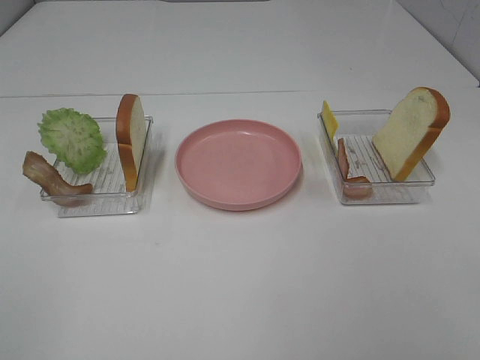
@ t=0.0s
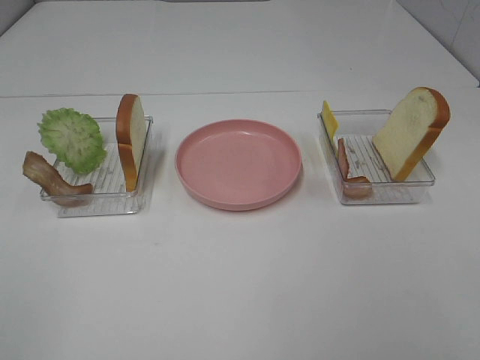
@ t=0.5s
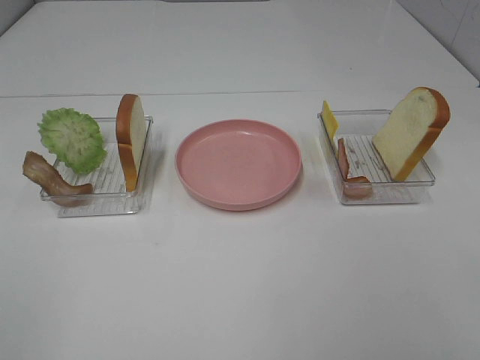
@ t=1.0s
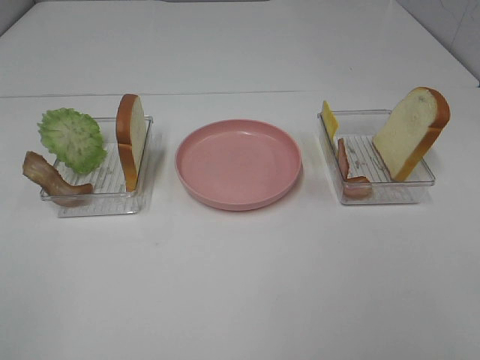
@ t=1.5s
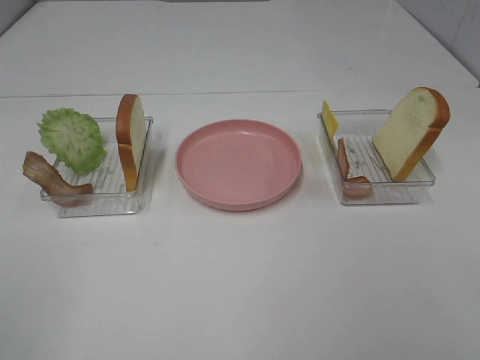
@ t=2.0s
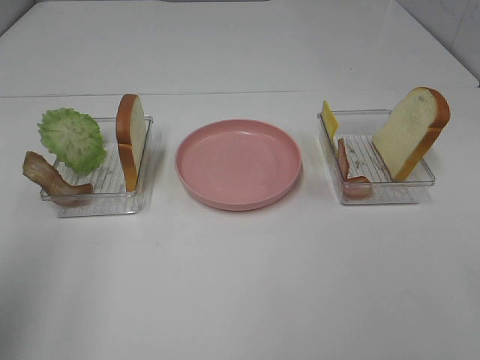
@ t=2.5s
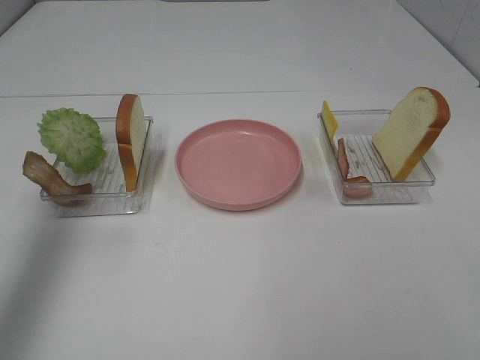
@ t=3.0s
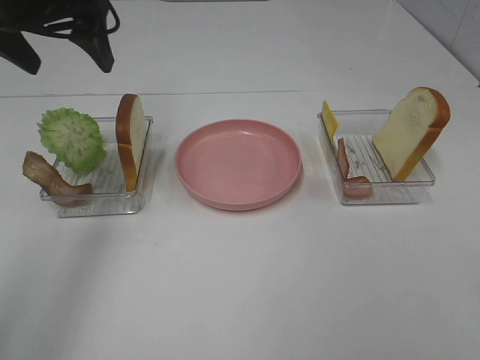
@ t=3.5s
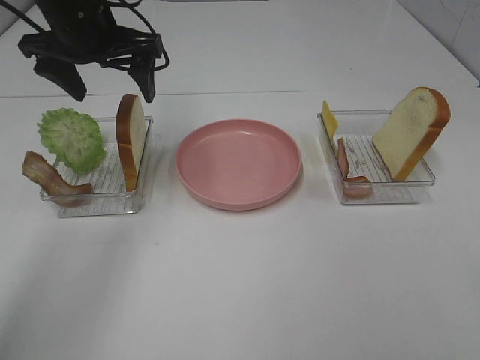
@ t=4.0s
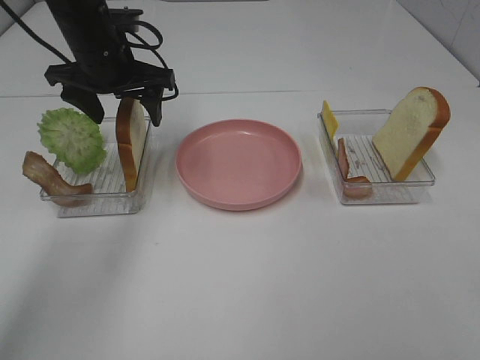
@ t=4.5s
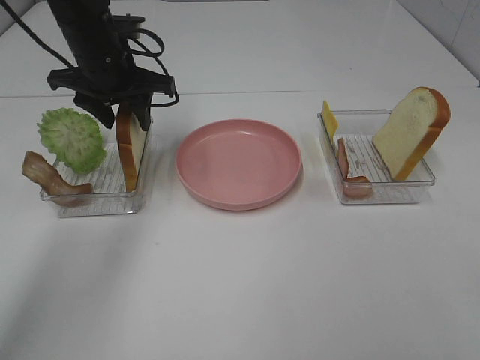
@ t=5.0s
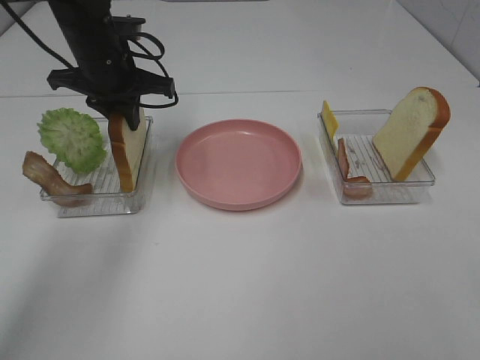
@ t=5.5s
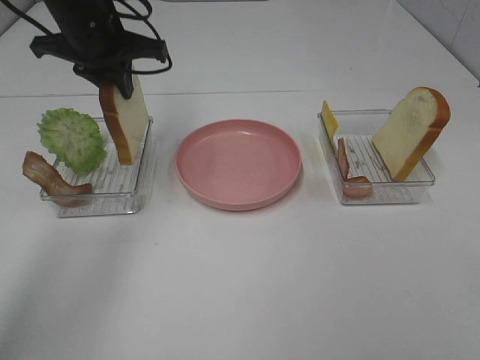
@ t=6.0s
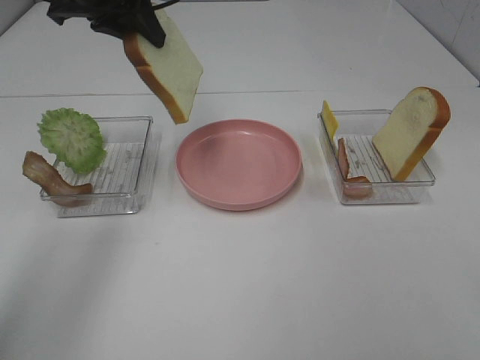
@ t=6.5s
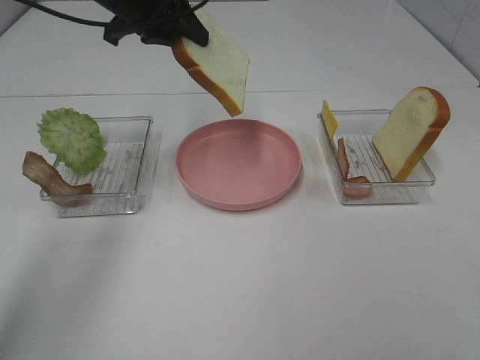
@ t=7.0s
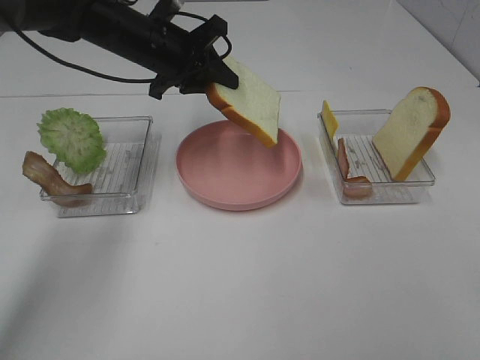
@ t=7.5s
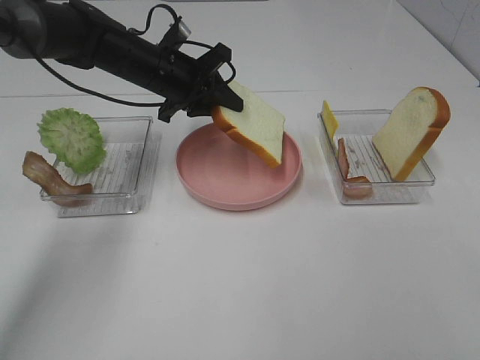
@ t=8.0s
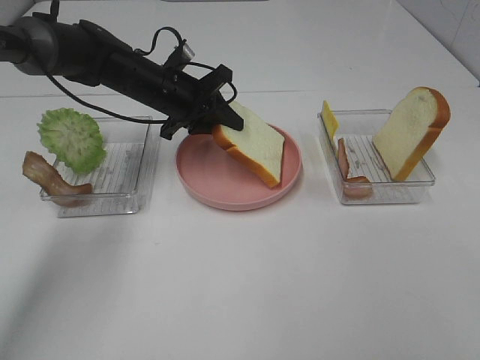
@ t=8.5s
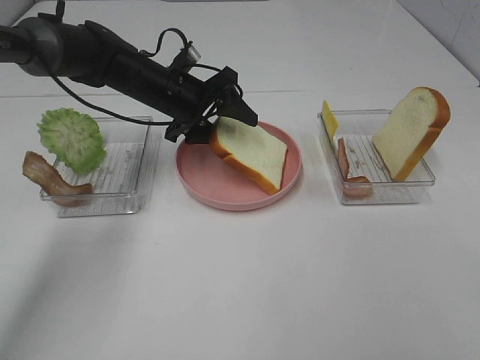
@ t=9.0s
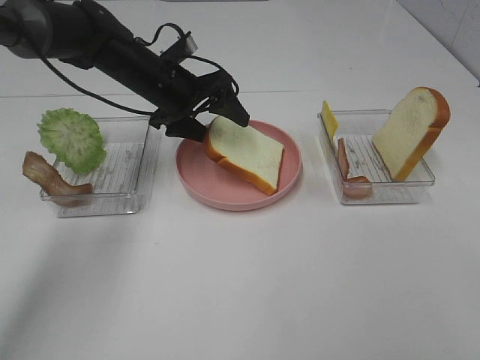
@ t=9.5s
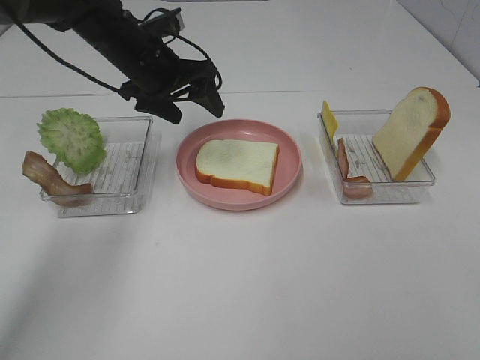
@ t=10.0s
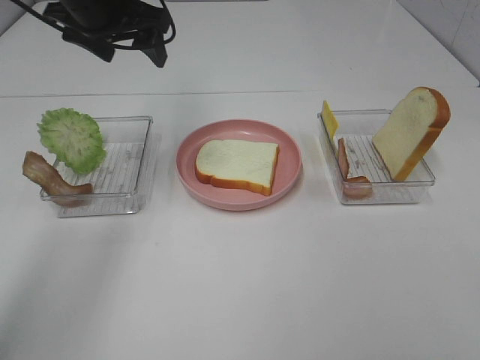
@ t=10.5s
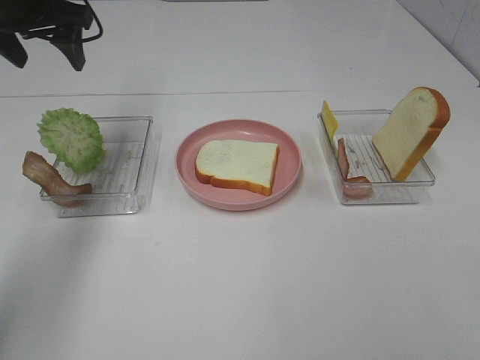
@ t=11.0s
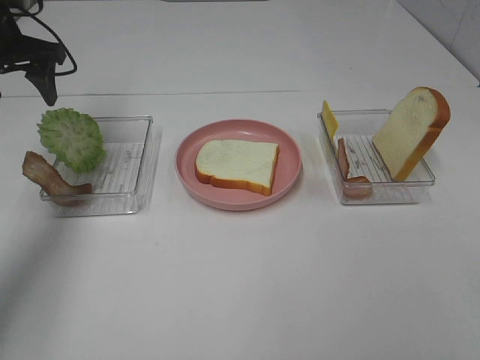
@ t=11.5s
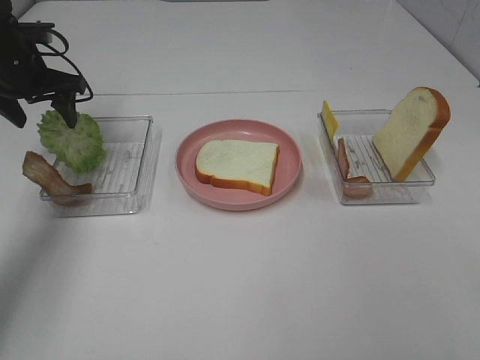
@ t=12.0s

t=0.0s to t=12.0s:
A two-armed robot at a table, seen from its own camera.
Task of the whole recording: Make sandwiches.
Step, t=0.0s to t=5.5s: Left hand:grab the bread slice.
Step, t=6.0s to t=9.5s: Left hand:place the bread slice on the plate.
t=2.0s to t=4.0s: The left gripper heads forward, covering about 40 cm.
t=4.0s to t=6.0s: The left gripper closes up.
t=6.0s to t=8.0s: The left gripper is displaced downward and to the right by some 10 cm.
t=8.0s to t=10.0s: The left gripper opens its fingers.
t=10.0s to t=12.0s: The left gripper shifts roughly 15 cm to the left.

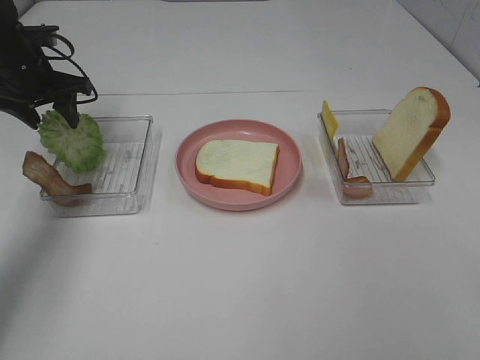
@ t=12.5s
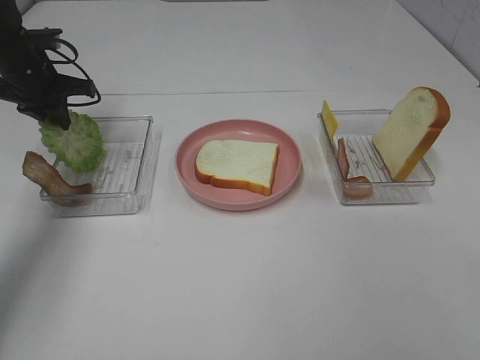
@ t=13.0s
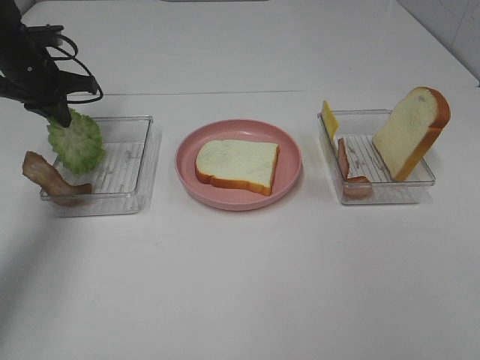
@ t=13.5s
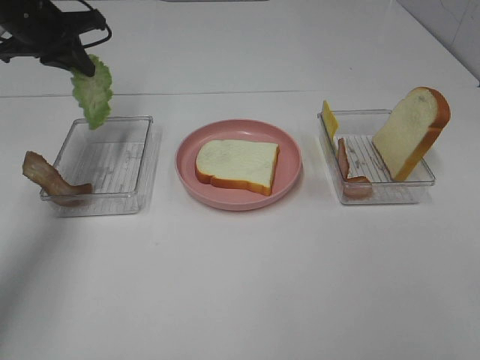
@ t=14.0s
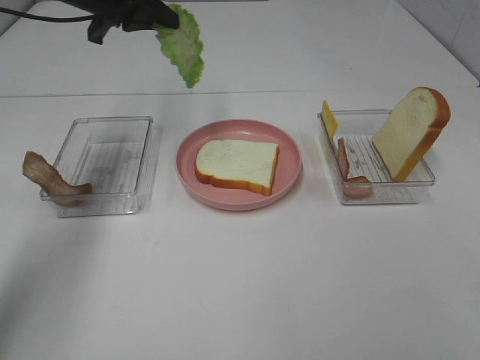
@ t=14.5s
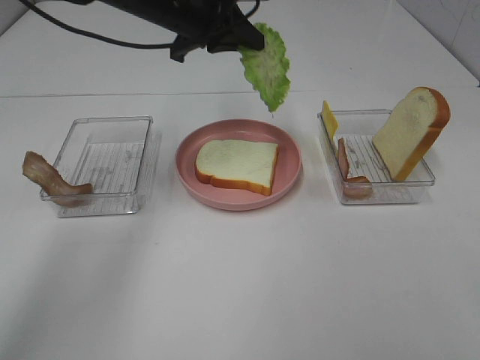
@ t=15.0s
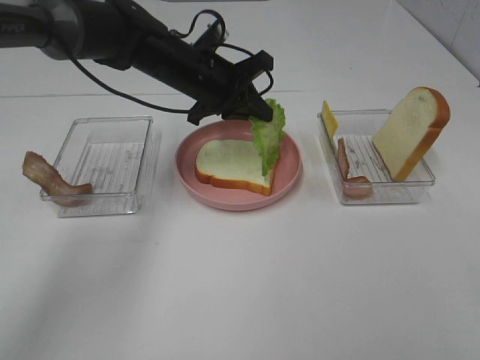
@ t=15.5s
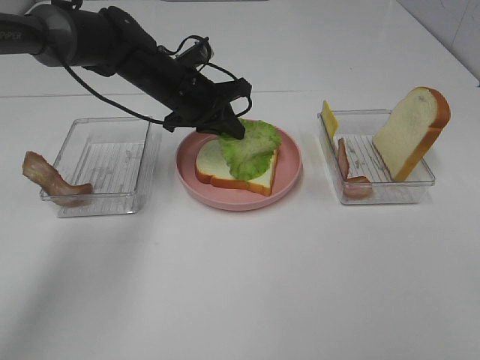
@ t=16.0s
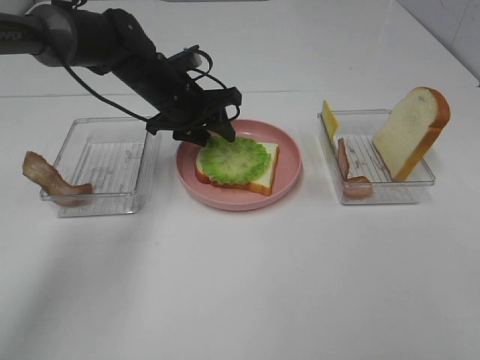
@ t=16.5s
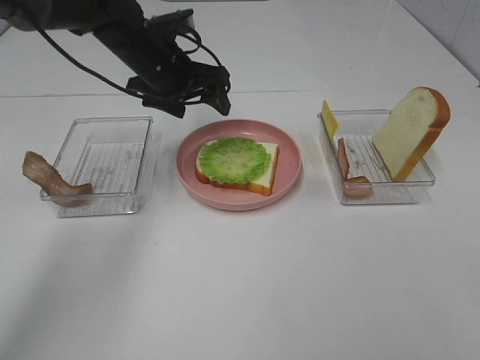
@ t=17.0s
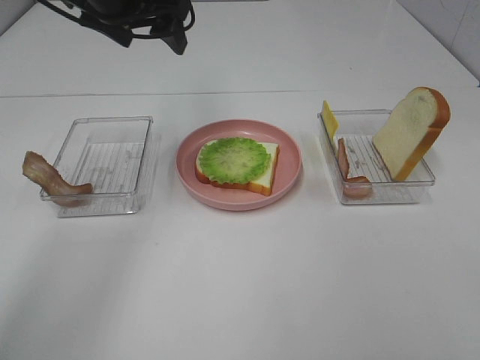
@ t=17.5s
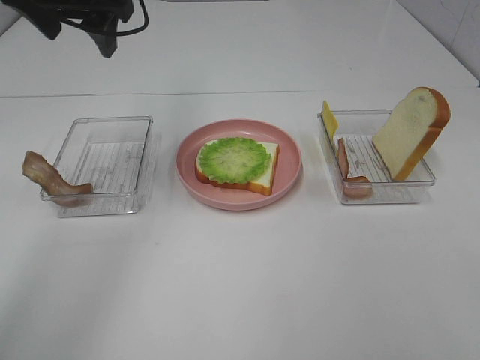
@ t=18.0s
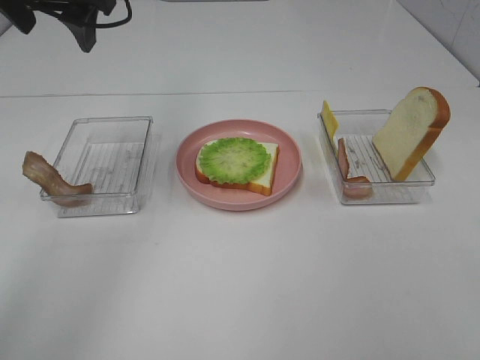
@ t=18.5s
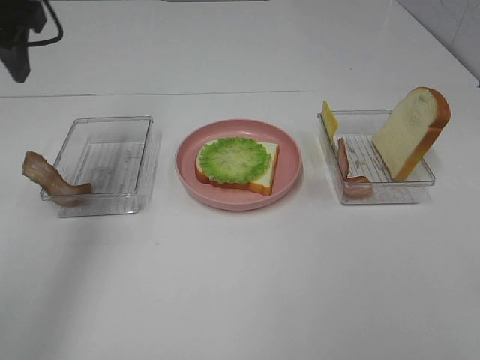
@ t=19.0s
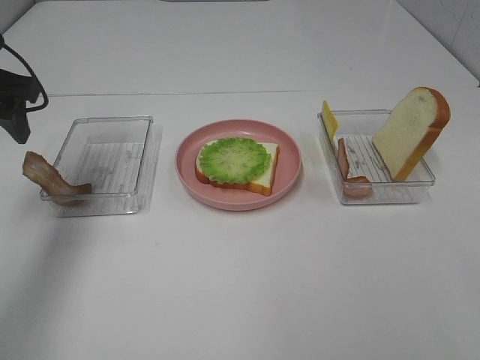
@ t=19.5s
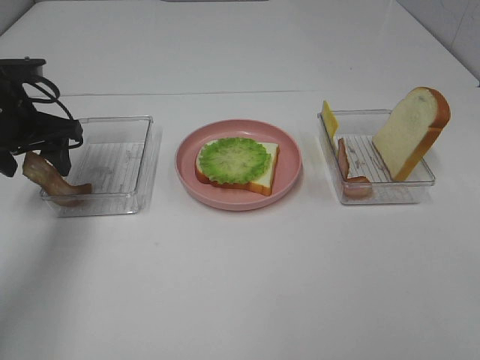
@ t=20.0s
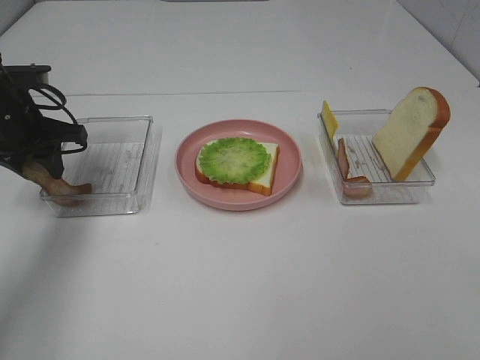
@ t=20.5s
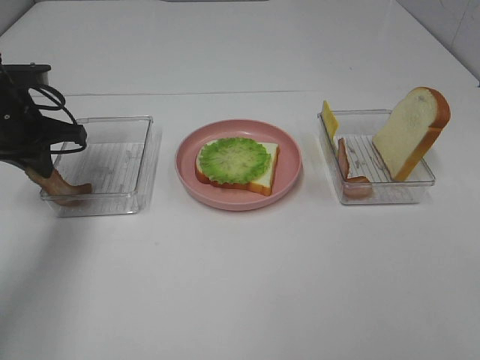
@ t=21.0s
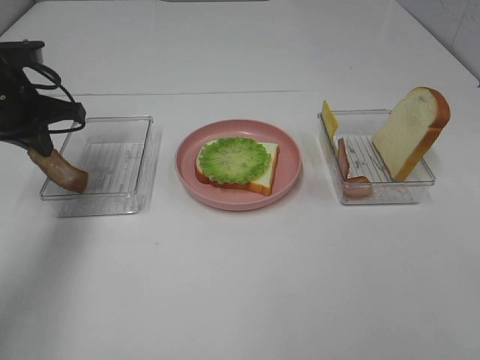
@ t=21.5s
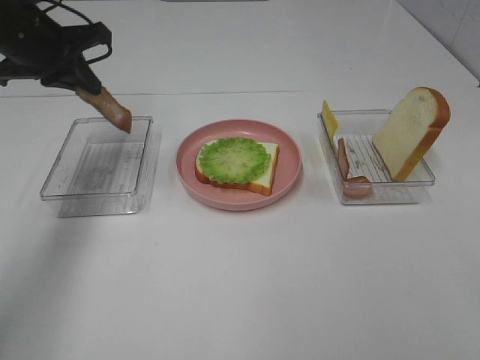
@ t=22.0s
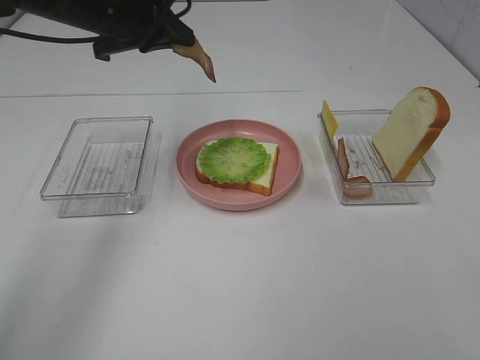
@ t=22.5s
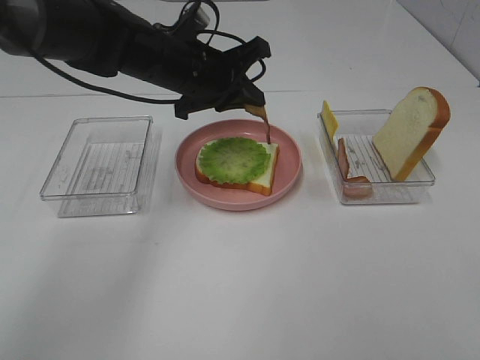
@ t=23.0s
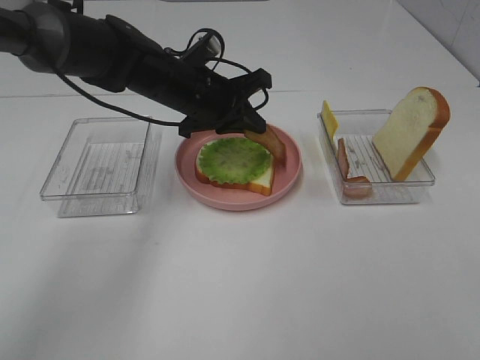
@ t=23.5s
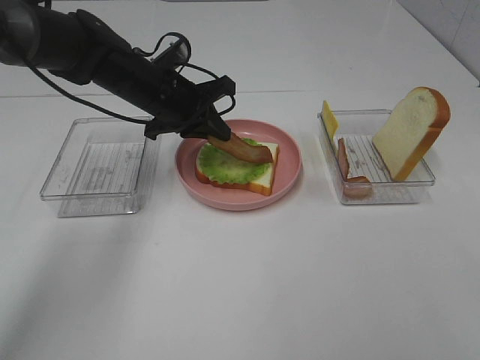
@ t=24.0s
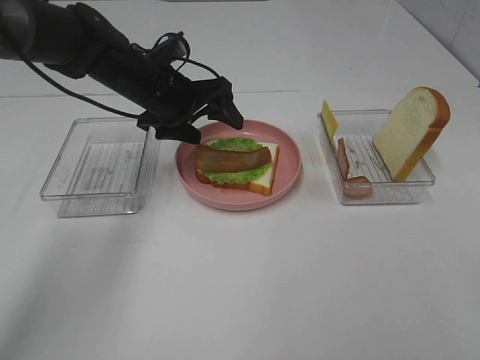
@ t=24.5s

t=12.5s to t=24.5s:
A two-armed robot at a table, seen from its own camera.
Task of the whole recording: Make sandwiches.
Step, t=13.5s to t=16.5s: Left hand:place the lettuce slice on the bread slice.
Step, t=17.0s to t=21.0s: Left hand:grab the bacon.
t=12.5s to t=14.5s: The left gripper shifts some 15 cm to the right and upward, and closes.
t=14.5s to t=16.5s: The left gripper shifts about 15 cm downward and to the right, and opens.
t=16.5s to t=18.5s: The left gripper shifts some 25 cm upward and to the left.
t=18.5s to t=20.5s: The left gripper heads downward and to the left, covering roughly 20 cm, and closes.
t=20.5s to t=22.5s: The left gripper is displaced to the right and upward by approximately 15 cm, and closes its fingers.
t=22.5s to t=24.5s: The left gripper moves downward, some 10 cm, and opens.

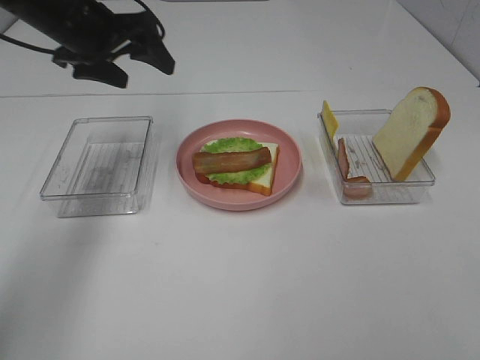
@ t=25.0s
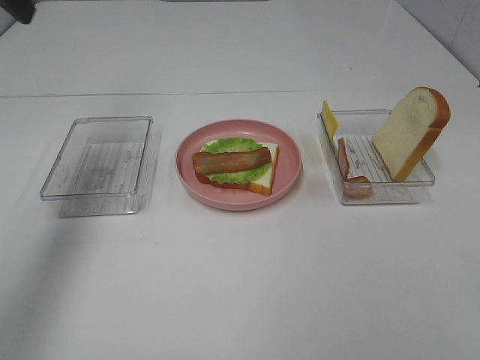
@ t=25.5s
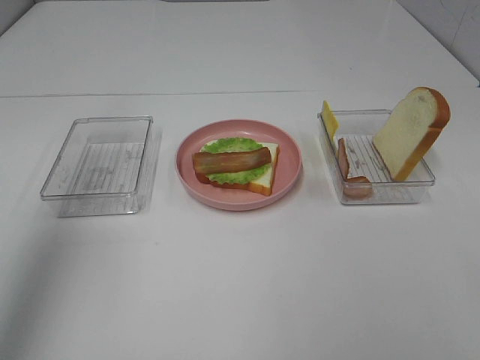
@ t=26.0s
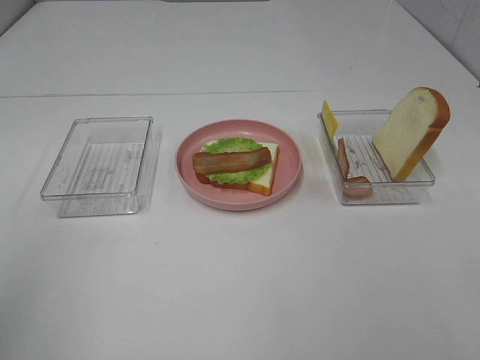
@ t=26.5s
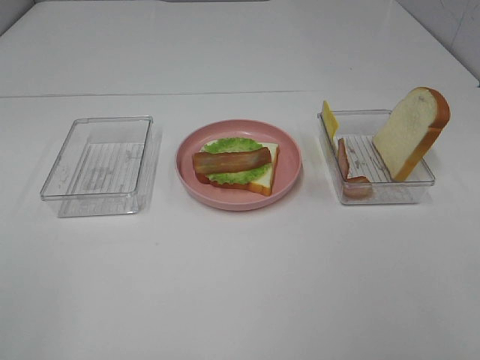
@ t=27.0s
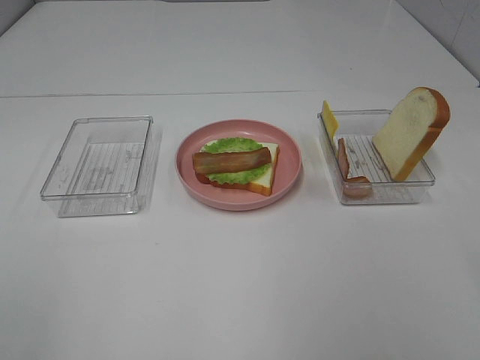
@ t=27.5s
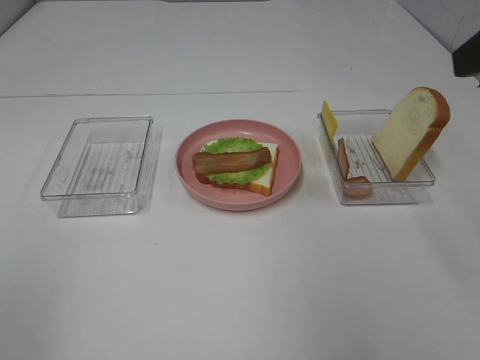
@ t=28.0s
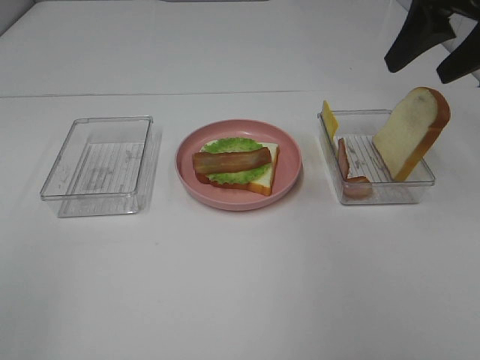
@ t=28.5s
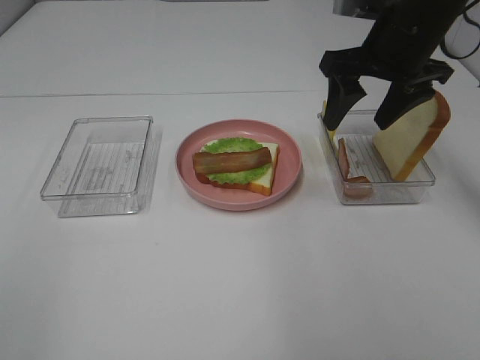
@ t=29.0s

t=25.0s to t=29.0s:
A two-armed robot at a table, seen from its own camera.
Task of the whole recording: Make sandwiches.
t=25.0s to t=27.0s: The left gripper shifts approximately 40 cm backward.
t=27.0s to t=29.0s: The right gripper moves forward, about 40 cm.
